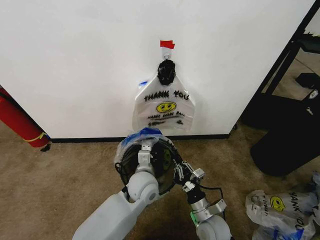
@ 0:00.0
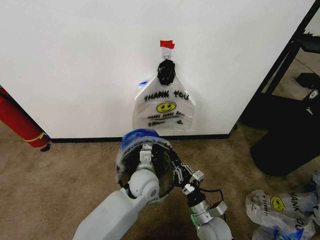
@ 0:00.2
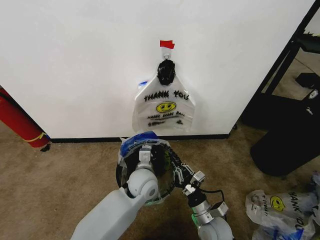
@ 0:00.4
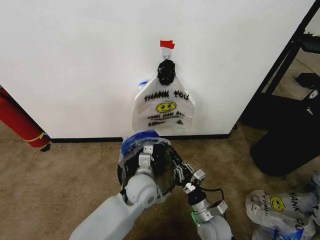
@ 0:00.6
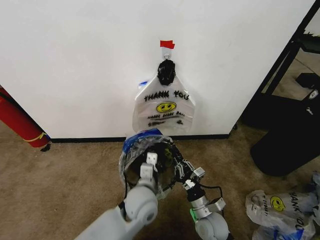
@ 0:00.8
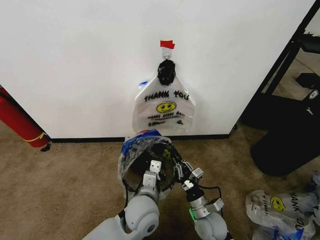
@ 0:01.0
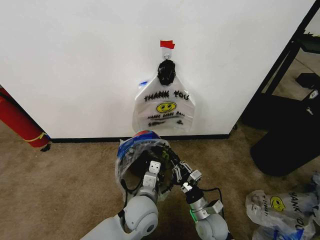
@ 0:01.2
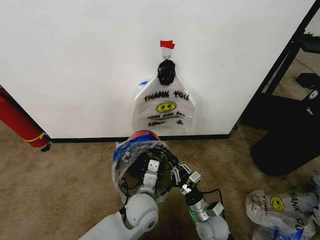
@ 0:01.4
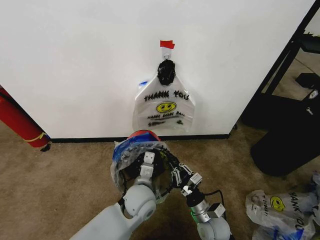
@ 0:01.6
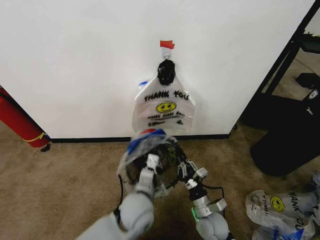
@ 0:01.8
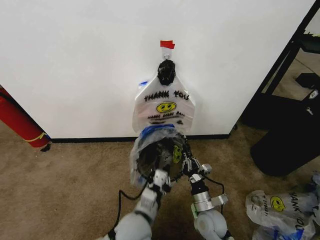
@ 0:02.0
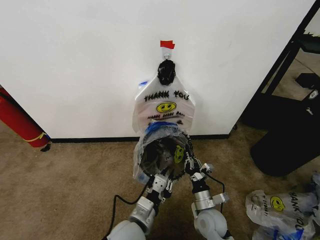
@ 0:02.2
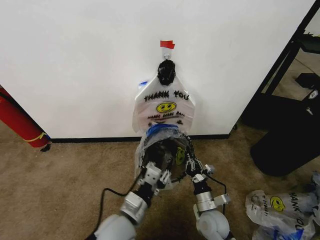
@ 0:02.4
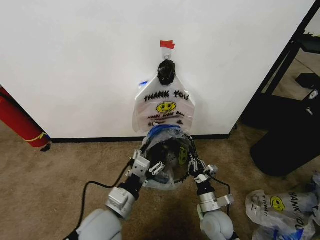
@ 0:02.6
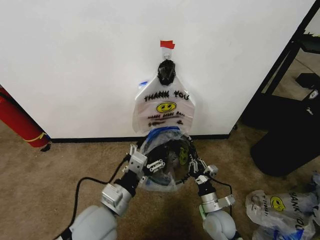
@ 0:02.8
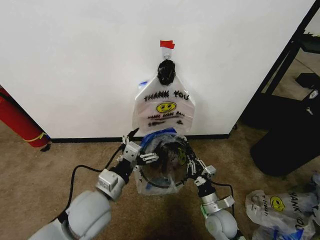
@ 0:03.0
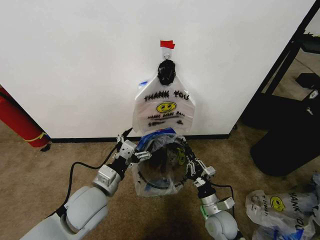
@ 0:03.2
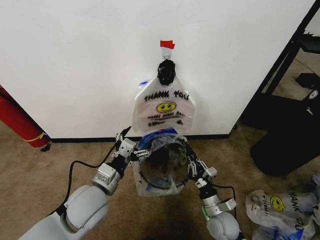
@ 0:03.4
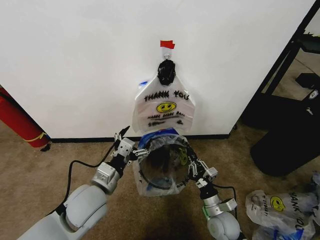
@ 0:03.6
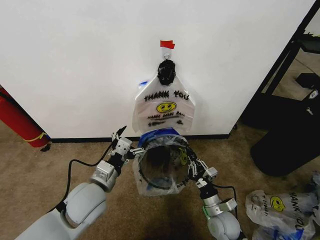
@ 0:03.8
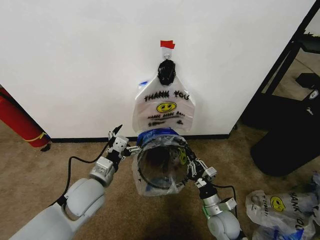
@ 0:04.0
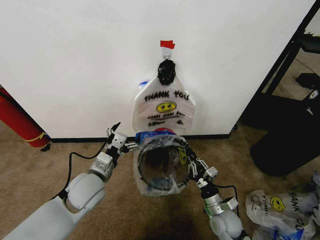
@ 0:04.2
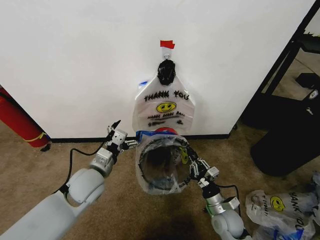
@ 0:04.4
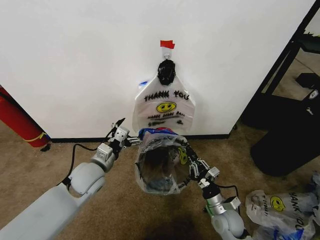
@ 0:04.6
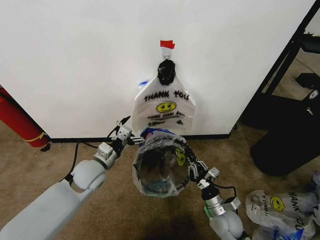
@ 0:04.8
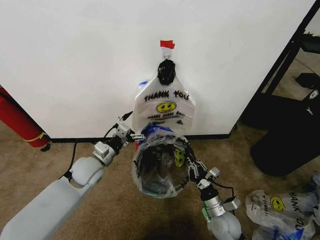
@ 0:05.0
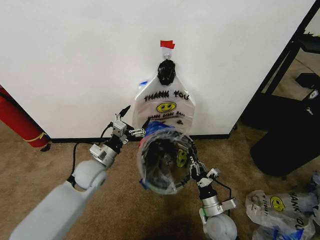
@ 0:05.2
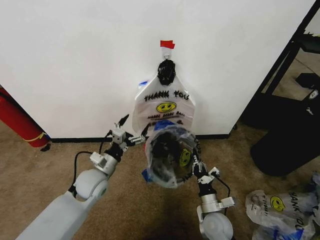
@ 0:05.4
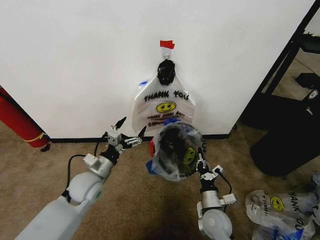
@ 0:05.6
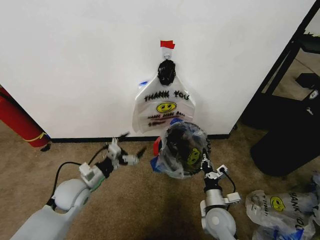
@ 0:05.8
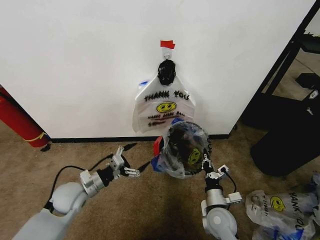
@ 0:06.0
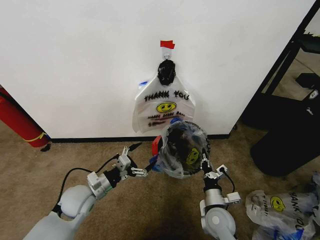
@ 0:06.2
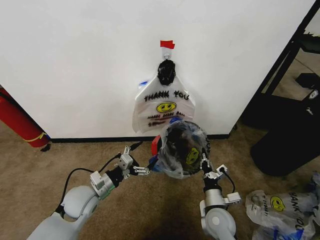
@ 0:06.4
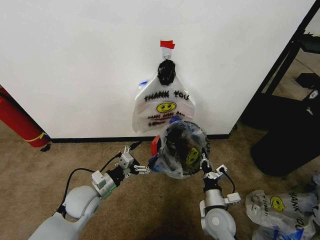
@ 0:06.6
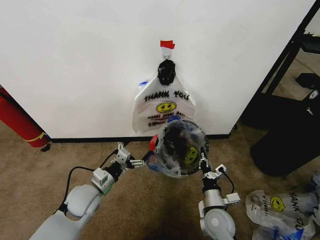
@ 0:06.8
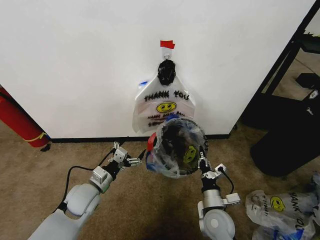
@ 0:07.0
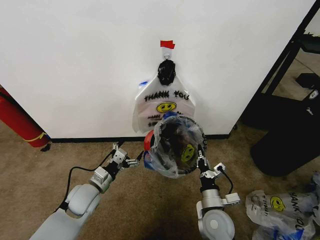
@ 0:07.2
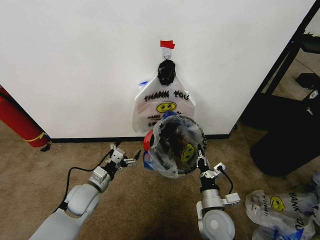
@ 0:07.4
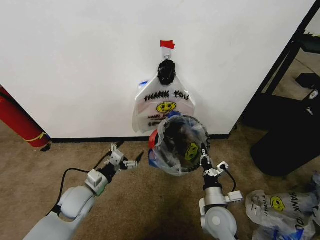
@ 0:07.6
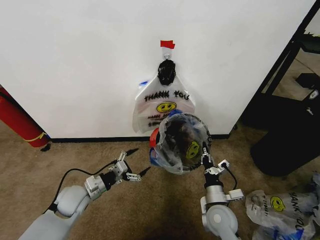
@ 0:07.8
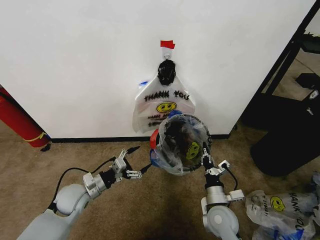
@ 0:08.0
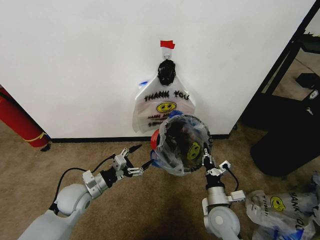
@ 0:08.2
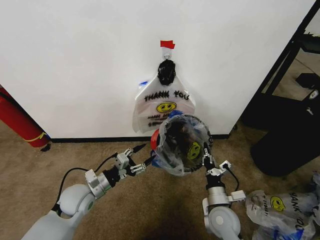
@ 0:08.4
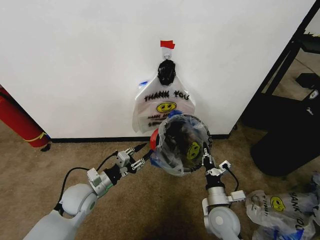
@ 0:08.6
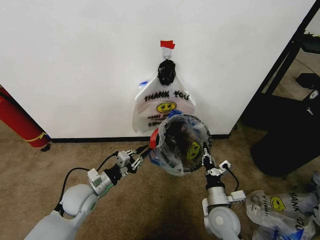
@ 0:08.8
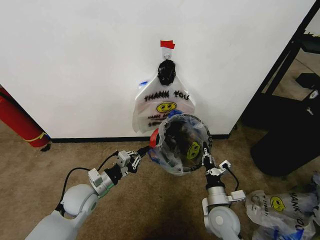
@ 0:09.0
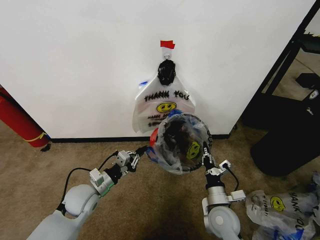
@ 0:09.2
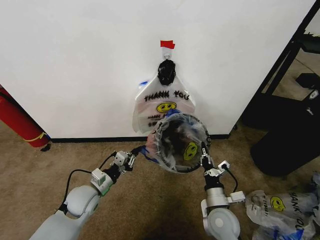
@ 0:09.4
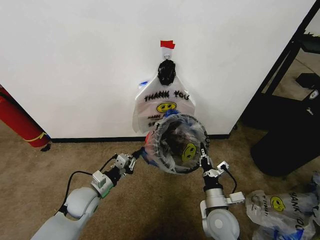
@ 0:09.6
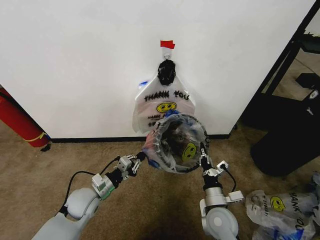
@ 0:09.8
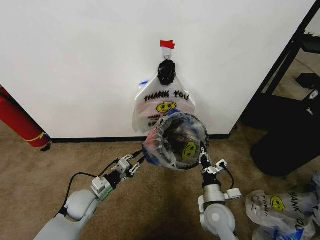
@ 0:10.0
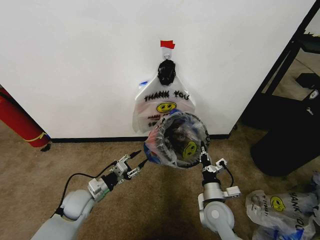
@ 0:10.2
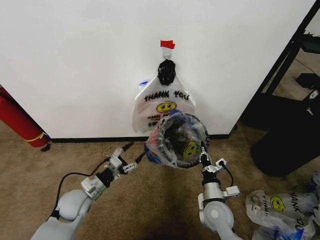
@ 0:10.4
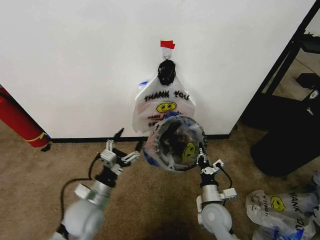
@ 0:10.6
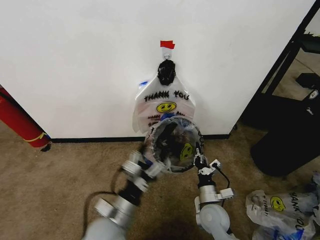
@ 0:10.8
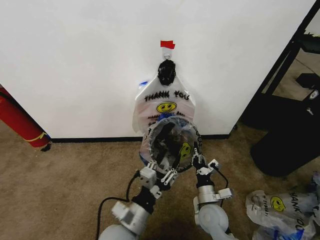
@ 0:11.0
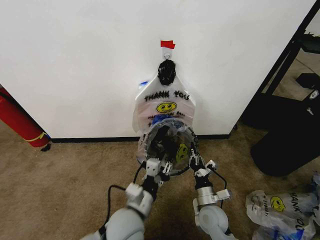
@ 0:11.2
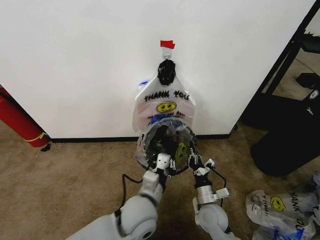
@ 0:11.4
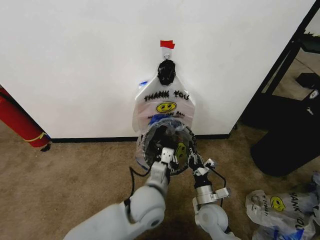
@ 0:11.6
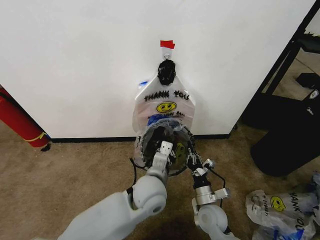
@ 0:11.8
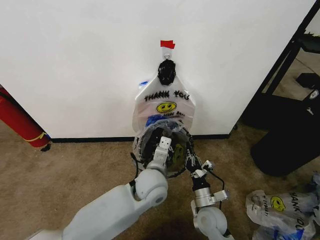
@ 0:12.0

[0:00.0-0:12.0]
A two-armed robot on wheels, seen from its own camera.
Task of the whole recording: Pick up the garbage bag from the wall and place it over the trash bin.
0:01.6 to 0:03.0: The left gripper goes about 15 cm to the left, upward and backward, and opens up.
0:03.0 to 0:04.4: The left gripper goes approximately 10 cm forward.
0:04.4 to 0:06.0: The left gripper heads to the left and downward, covering approximately 10 cm.
0:07.6 to 0:09.0: The left gripper closes up.
0:09.0 to 0:10.4: The left gripper opens up.
0:10.4 to 0:12.0: The left gripper travels to the right by approximately 25 cm, and closes up.

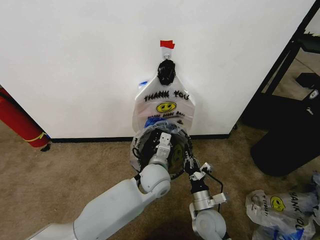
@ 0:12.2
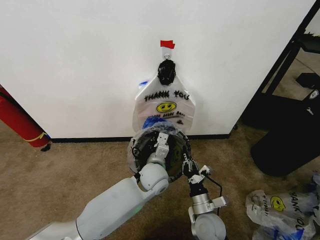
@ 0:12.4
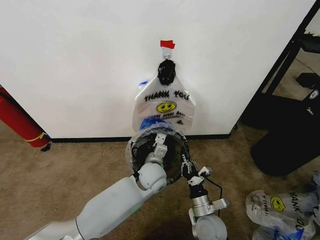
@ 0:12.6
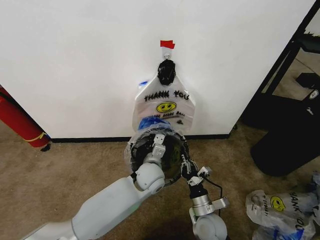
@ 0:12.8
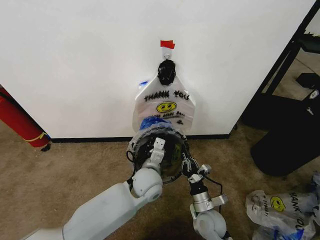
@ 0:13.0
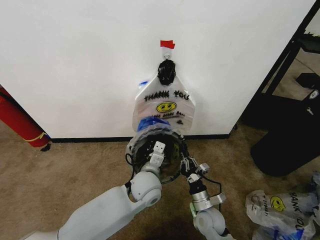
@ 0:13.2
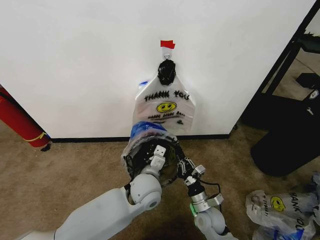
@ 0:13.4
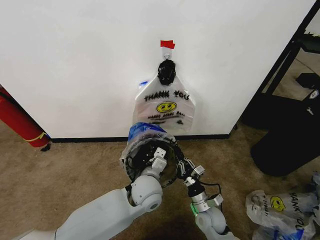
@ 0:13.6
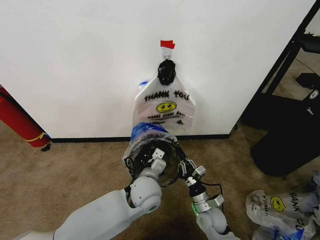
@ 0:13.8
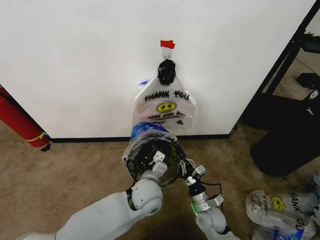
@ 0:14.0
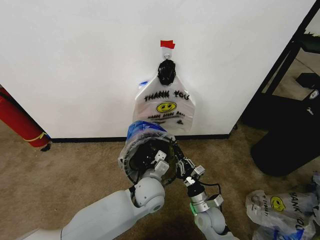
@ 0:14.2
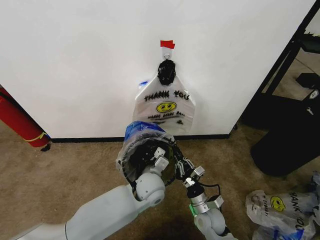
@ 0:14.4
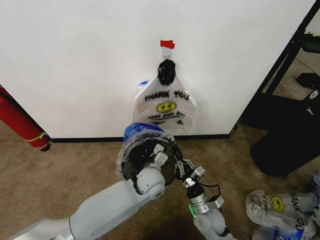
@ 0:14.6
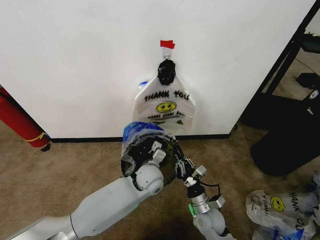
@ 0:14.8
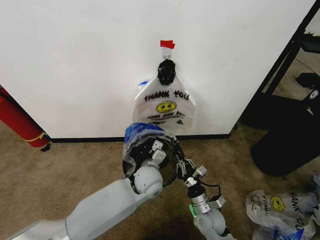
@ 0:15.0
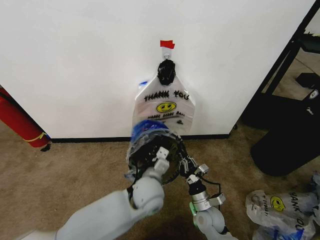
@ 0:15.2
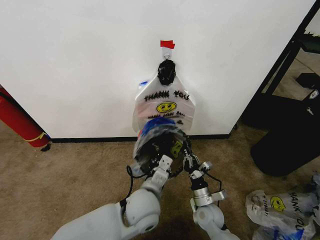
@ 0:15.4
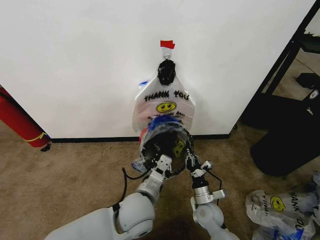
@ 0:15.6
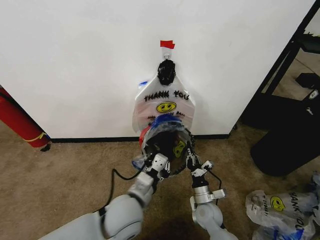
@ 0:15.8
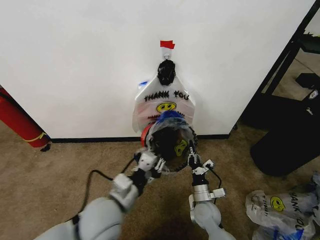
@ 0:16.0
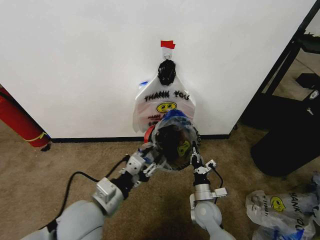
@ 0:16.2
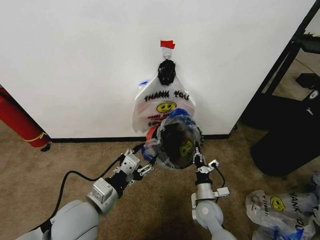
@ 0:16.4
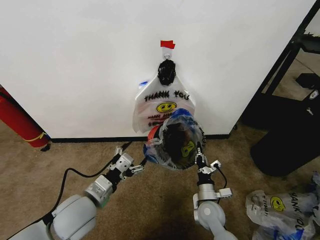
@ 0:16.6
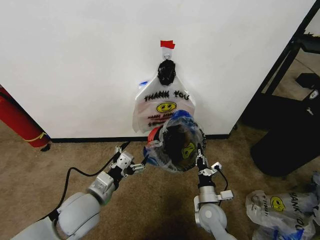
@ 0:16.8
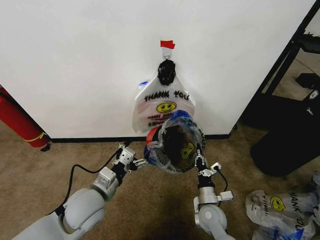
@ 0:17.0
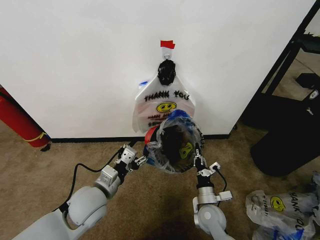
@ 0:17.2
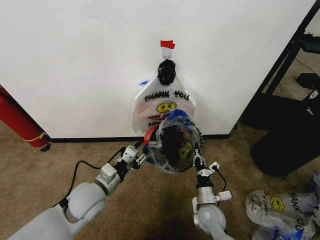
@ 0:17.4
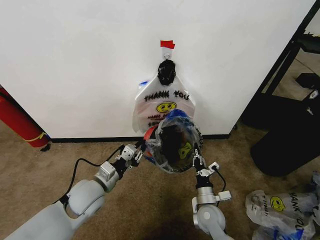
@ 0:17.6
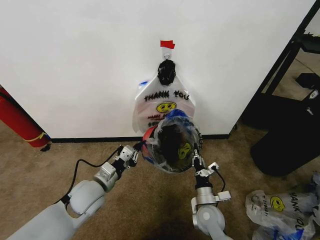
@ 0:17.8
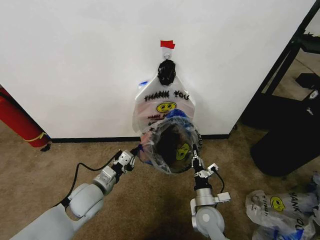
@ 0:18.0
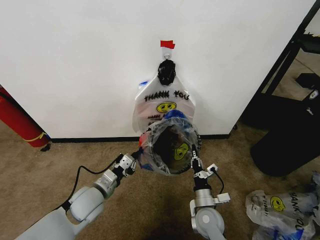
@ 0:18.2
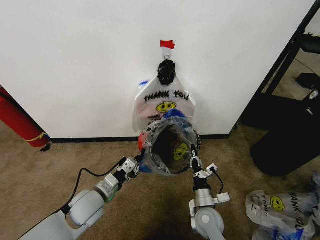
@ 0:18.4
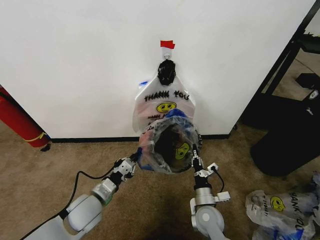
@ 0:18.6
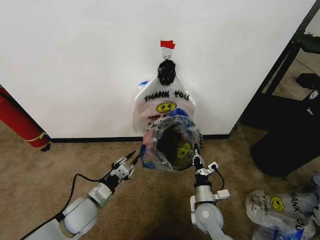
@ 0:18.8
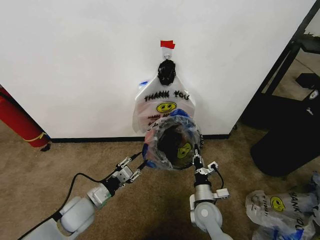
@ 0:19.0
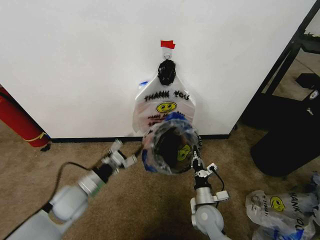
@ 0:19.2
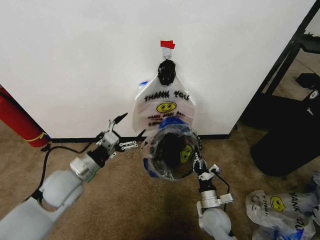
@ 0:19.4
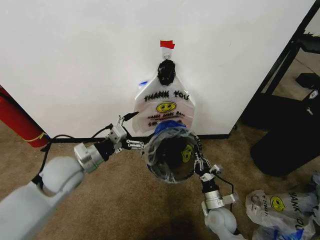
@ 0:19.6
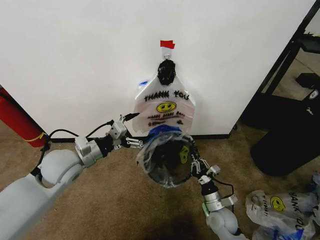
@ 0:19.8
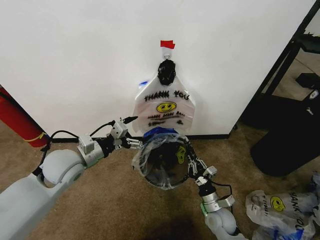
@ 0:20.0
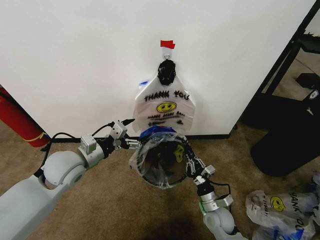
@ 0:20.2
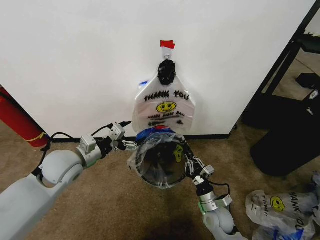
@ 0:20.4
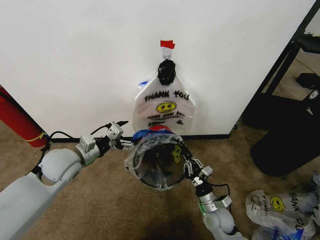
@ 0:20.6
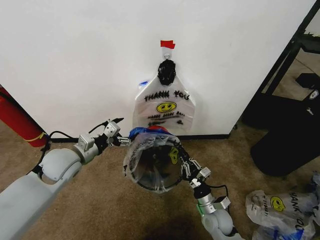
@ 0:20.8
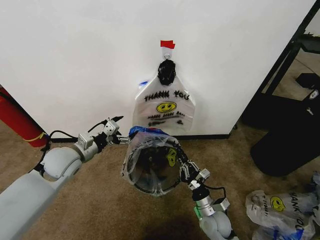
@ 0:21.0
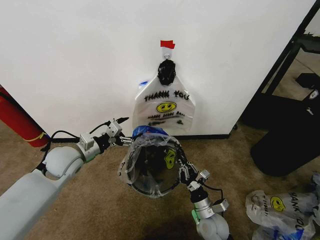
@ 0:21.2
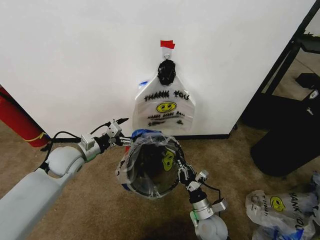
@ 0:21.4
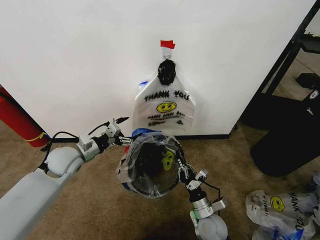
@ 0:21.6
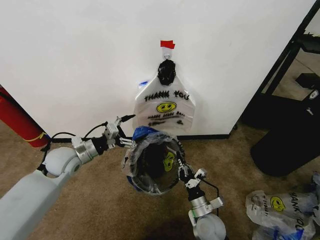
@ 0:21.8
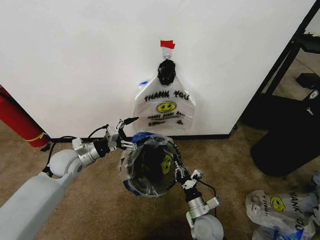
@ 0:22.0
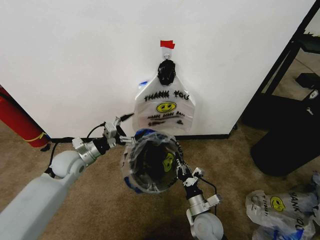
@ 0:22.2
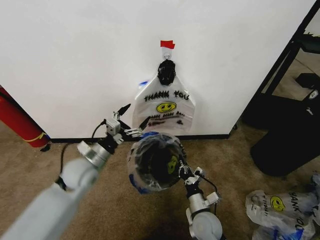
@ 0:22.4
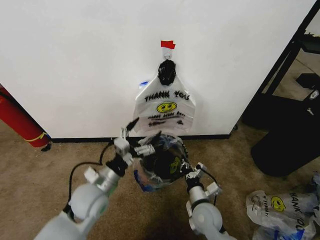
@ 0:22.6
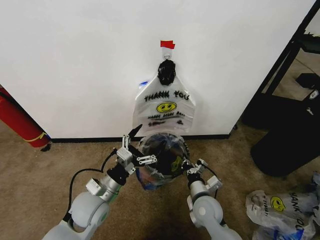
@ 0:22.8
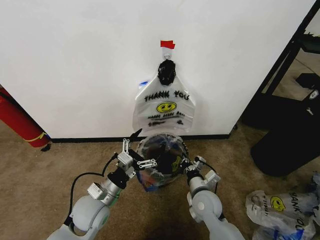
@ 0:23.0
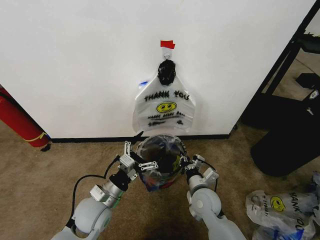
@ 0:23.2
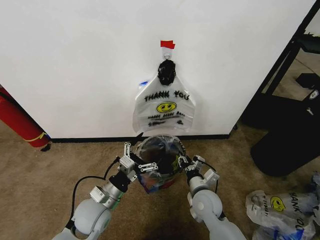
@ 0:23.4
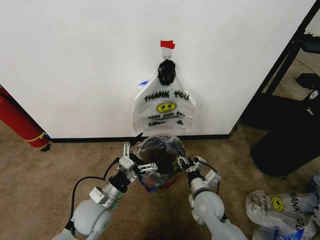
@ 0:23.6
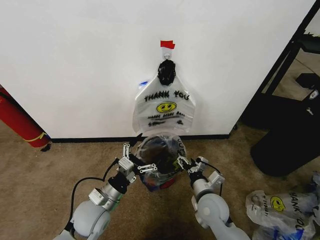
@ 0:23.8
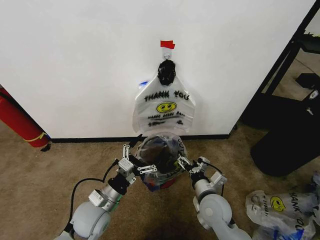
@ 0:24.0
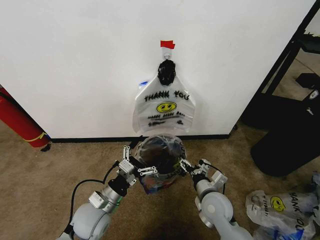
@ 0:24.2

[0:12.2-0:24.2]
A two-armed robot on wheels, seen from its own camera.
Task of the whole recording: Pick up the garbage bag from the wall and place it over the trash bin.
0:12.2 to 0:13.8: The left gripper ends up about 5 cm from where it was. The right gripper changes place by approximately 5 cm.
0:15.2 to 0:16.6: The left gripper moves to the left, approximately 20 cm, and opens.
0:16.6 to 0:18.2: The left gripper goes approximately 10 cm downward and forward, and closes its fingers.
0:18.2 to 0:19.8: The left gripper heads upward, covering approximately 15 cm, and opens; the right gripper heads to the right, covering roughly 5 cm.
0:19.8 to 0:21.2: The left gripper shifts by some 5 cm.
0:21.2 to 0:22.6: The left gripper is displaced backward, to the right and downward by some 15 cm; the right gripper travels upward by about 5 cm.
0:22.6 to 0:24.2: The right gripper shifts by about 5 cm, and opens its fingers, while the left gripper changes place by some 5 cm.
